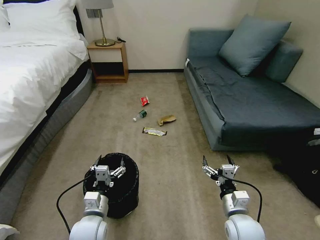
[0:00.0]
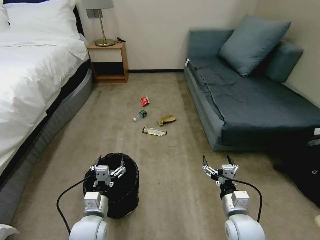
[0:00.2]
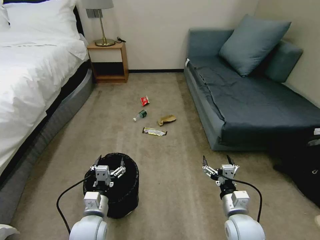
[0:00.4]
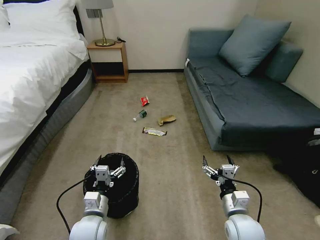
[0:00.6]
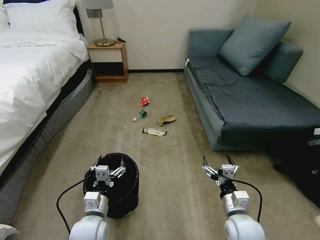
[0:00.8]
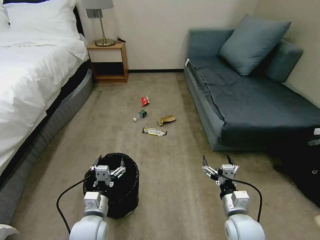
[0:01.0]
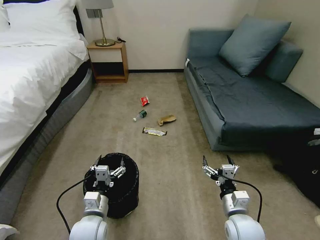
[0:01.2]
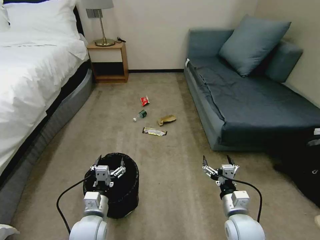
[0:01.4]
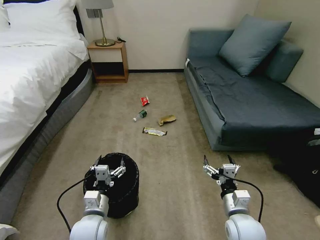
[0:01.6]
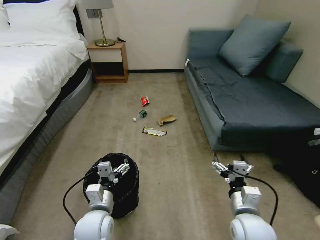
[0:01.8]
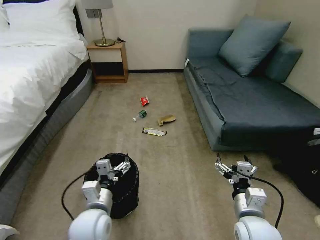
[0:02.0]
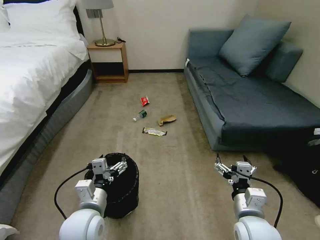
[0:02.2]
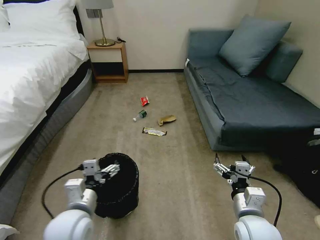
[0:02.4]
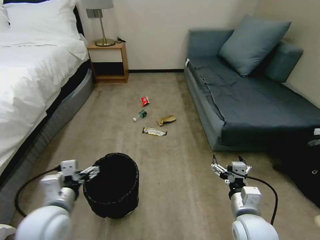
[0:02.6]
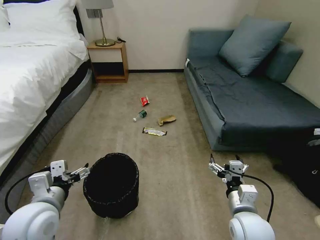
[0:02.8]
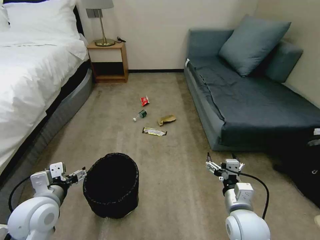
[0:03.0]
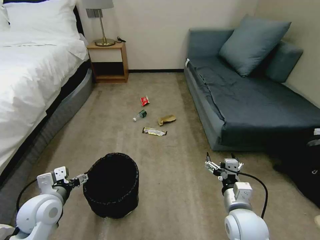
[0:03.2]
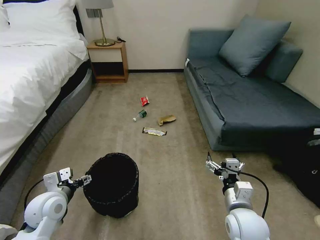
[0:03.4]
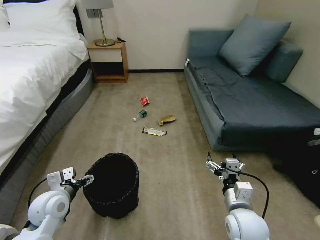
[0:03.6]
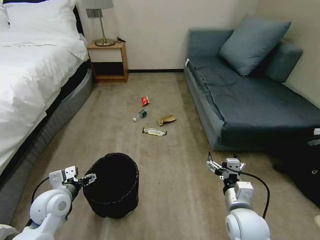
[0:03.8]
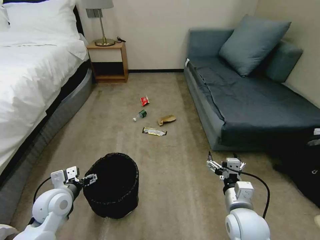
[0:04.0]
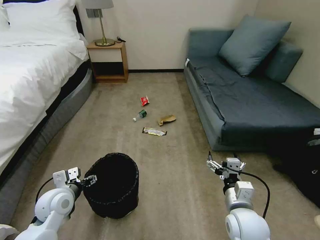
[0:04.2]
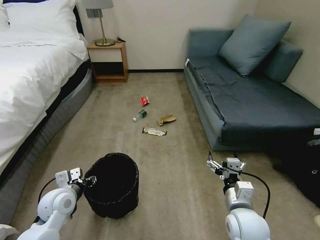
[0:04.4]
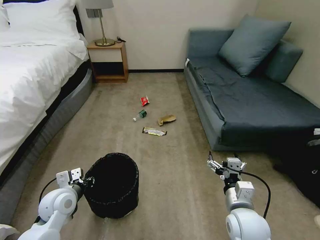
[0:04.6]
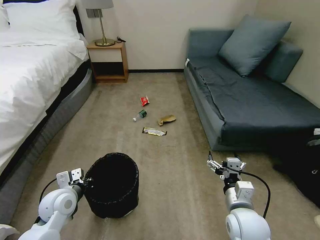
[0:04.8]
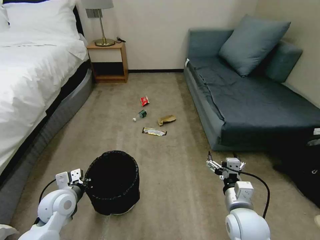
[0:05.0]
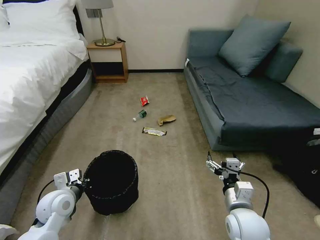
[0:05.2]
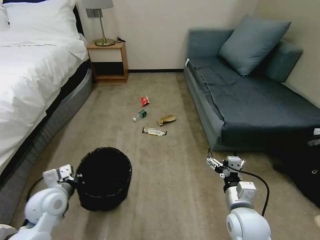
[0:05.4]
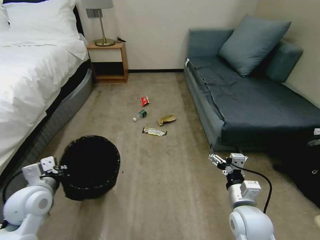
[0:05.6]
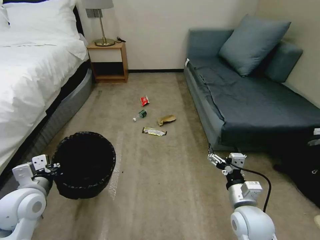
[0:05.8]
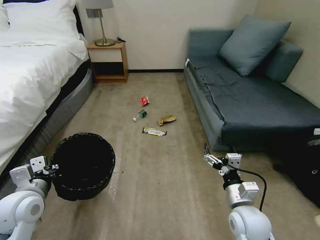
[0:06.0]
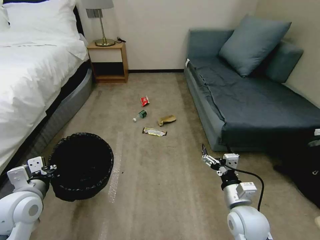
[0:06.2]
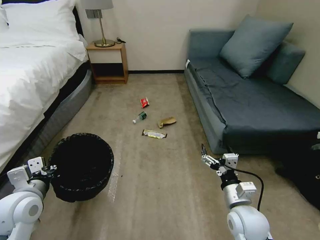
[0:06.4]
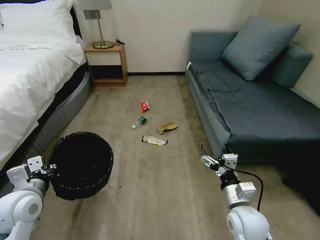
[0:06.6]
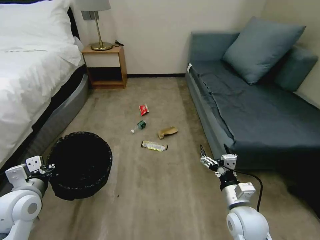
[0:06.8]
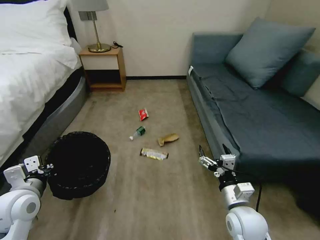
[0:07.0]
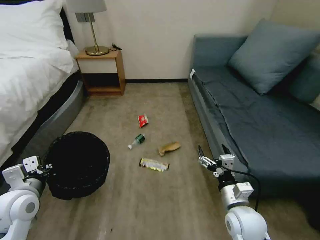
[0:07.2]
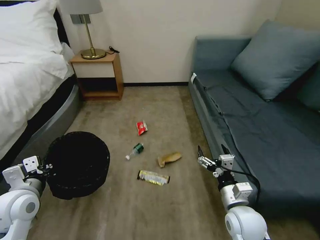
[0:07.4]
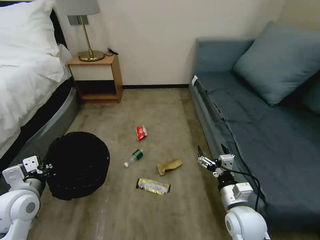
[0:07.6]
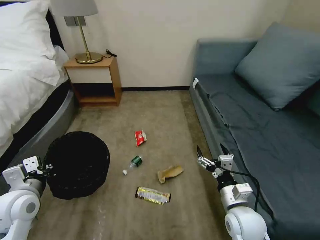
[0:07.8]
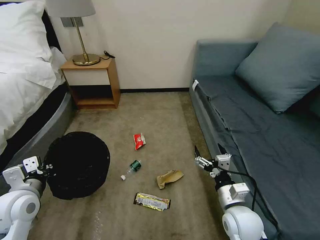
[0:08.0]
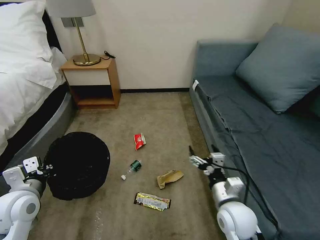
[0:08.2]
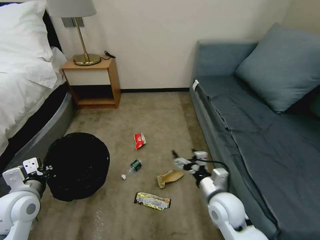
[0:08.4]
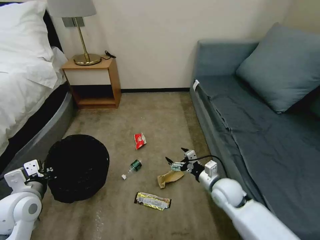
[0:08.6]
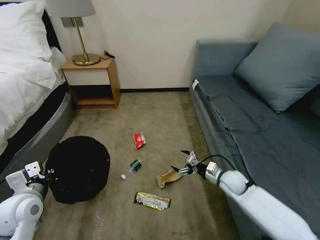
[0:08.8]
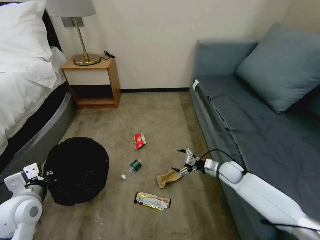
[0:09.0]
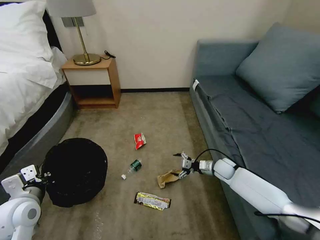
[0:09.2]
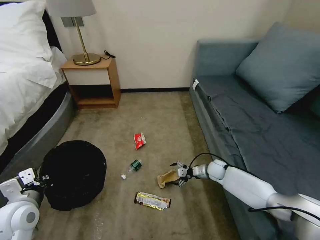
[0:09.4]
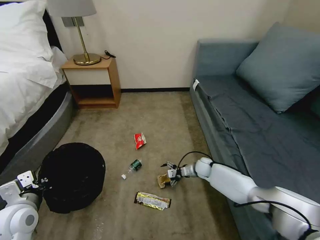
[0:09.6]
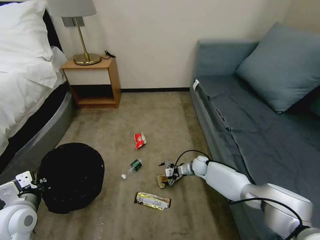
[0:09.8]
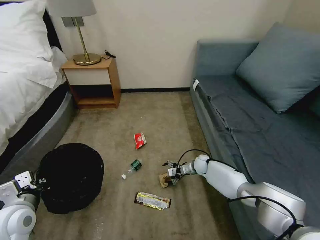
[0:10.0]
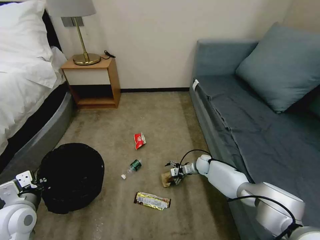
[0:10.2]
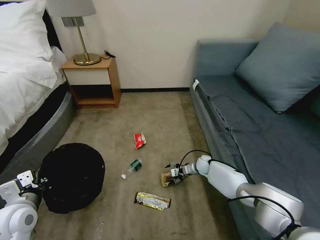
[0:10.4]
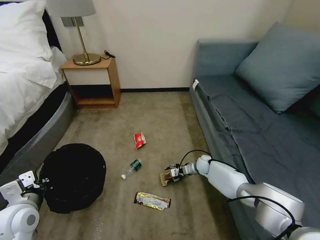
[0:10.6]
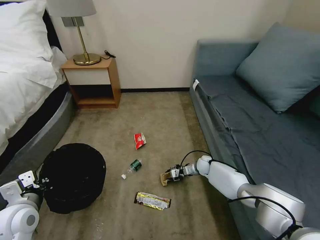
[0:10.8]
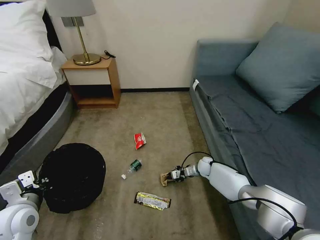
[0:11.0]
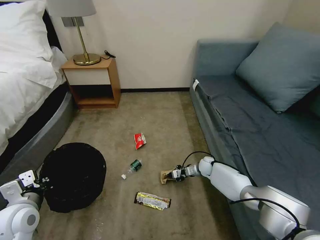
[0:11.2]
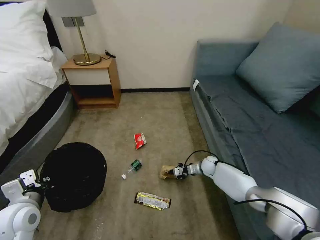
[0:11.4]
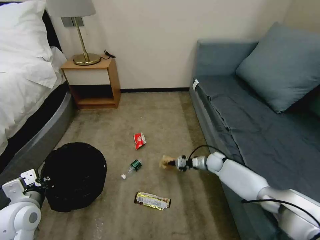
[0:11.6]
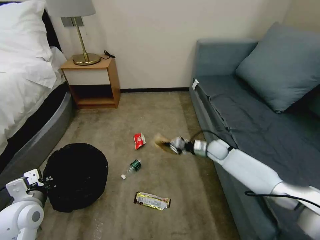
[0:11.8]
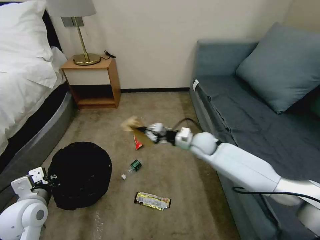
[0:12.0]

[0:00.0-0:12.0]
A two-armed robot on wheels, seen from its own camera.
Task of the whole recording: Pick up the trash bin, then pick up the garbage on the floor and place it into the trash bin.
0:01.6 to 0:03.0: The left gripper travels upward and to the left by some 15 cm.
0:03.0 to 0:04.4: The left gripper heads downward and forward, covering about 10 cm, and closes.
0:04.4 to 0:06.0: The left gripper shifts roughly 10 cm upward, and closes up.
0:07.6 to 0:09.0: The right gripper travels forward and downward by roughly 20 cm.
0:09.0 to 0:10.4: The right gripper heads forward, downward and to the left, covering some 15 cm.
0:10.4 to 0:12.0: The right gripper goes roughly 20 cm upward, and closes.

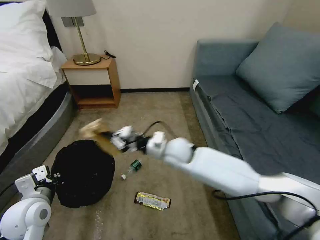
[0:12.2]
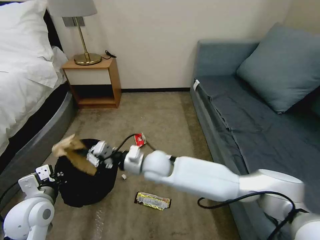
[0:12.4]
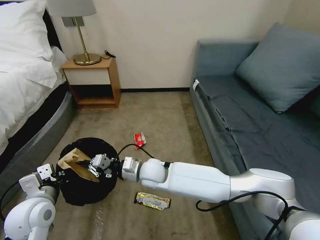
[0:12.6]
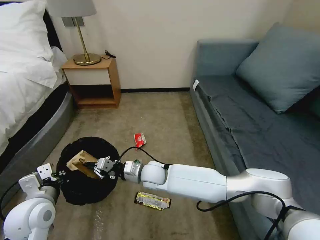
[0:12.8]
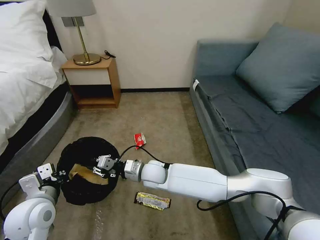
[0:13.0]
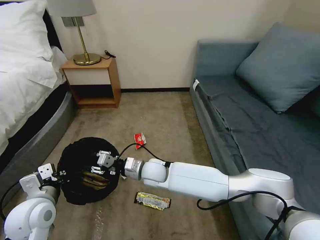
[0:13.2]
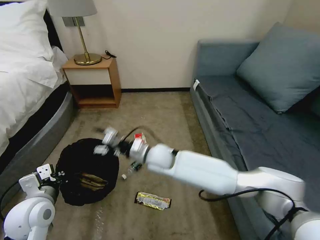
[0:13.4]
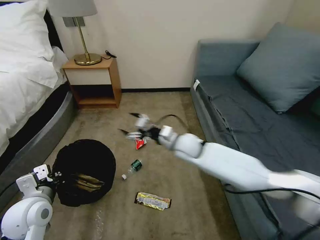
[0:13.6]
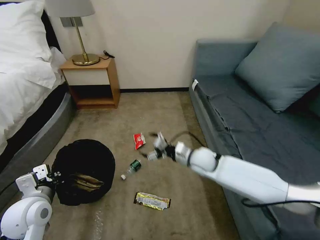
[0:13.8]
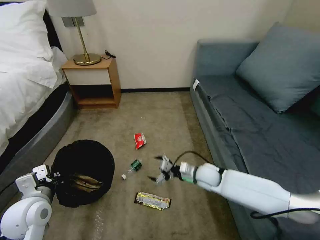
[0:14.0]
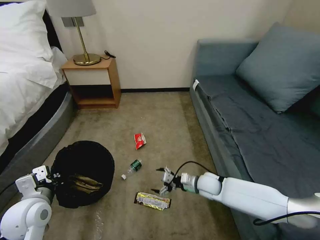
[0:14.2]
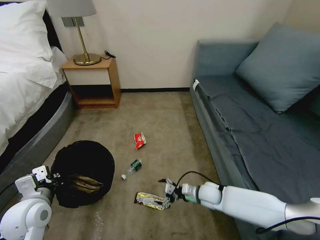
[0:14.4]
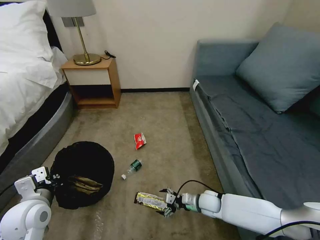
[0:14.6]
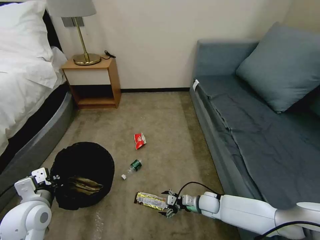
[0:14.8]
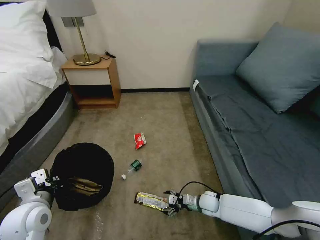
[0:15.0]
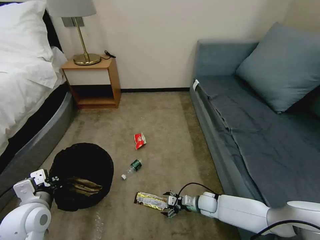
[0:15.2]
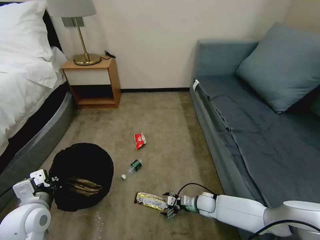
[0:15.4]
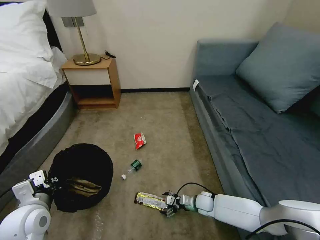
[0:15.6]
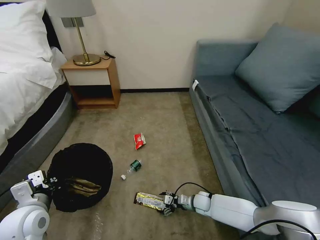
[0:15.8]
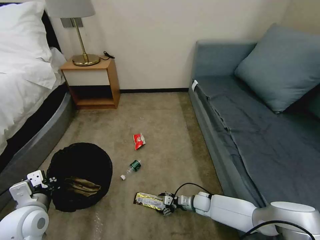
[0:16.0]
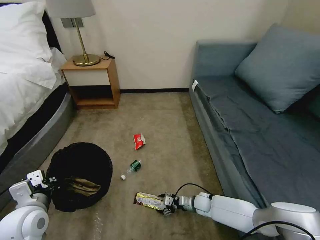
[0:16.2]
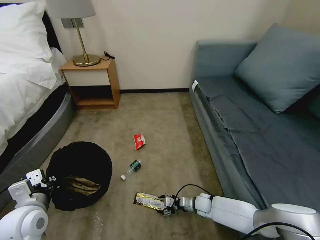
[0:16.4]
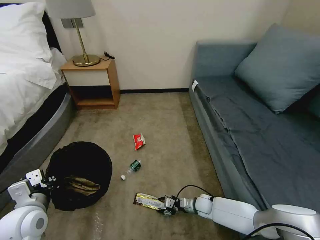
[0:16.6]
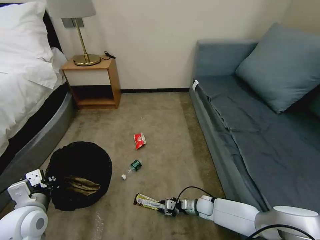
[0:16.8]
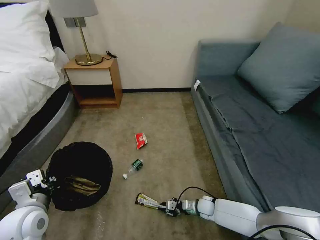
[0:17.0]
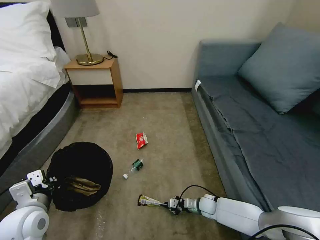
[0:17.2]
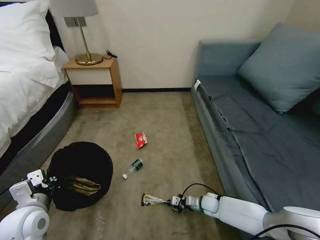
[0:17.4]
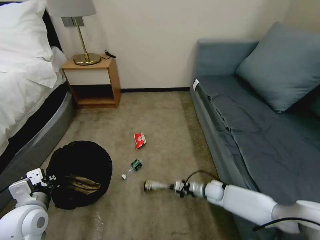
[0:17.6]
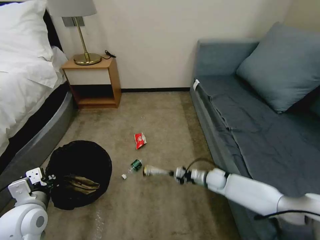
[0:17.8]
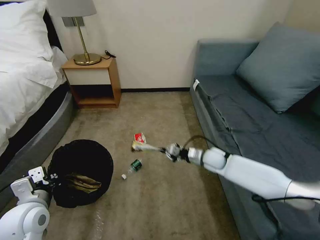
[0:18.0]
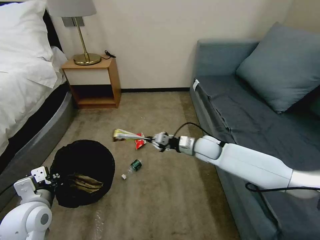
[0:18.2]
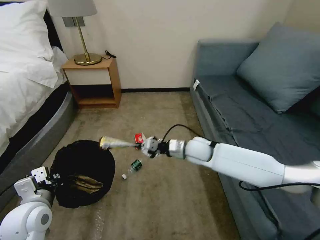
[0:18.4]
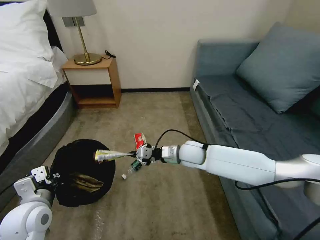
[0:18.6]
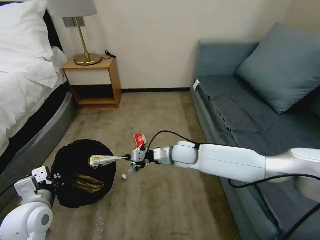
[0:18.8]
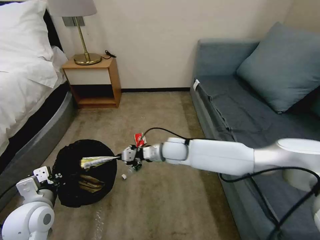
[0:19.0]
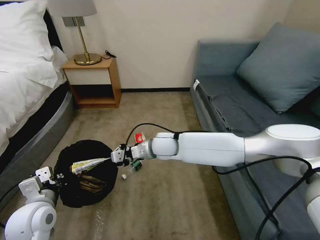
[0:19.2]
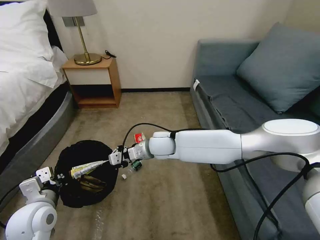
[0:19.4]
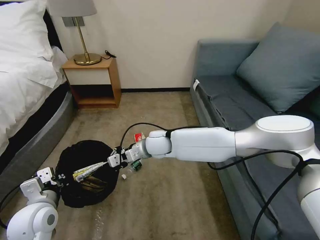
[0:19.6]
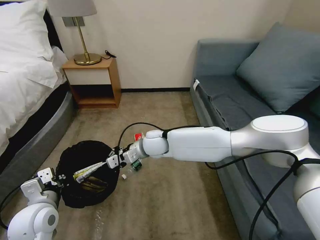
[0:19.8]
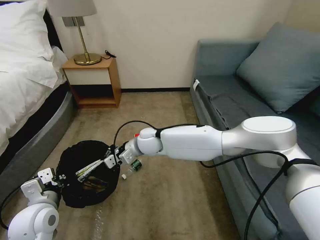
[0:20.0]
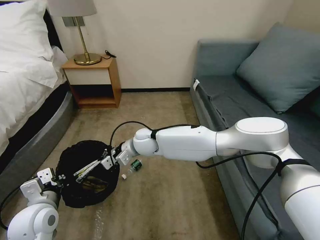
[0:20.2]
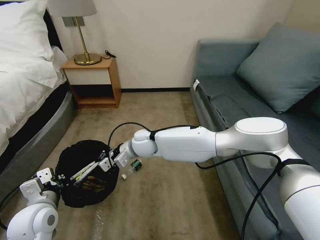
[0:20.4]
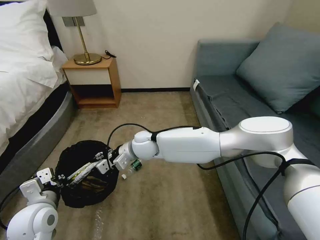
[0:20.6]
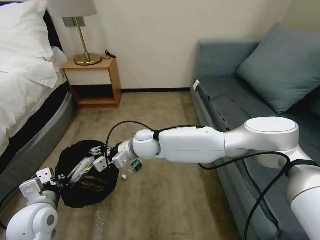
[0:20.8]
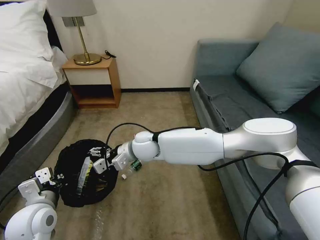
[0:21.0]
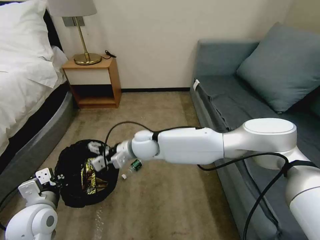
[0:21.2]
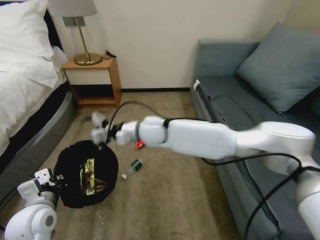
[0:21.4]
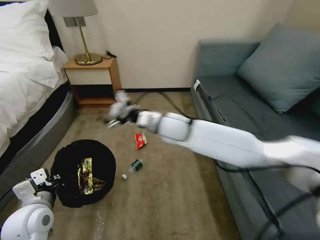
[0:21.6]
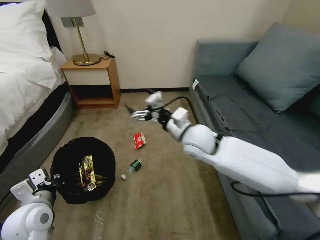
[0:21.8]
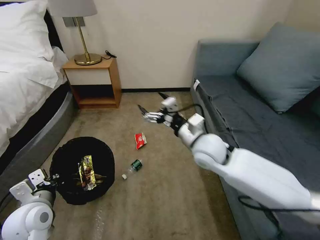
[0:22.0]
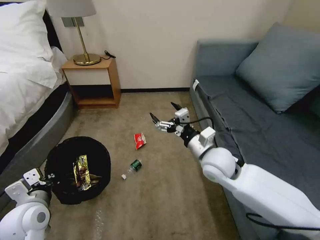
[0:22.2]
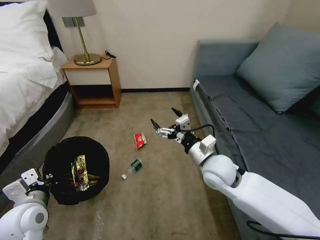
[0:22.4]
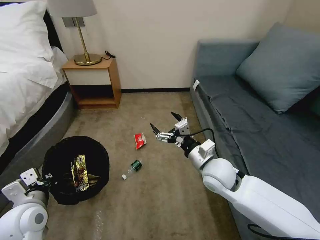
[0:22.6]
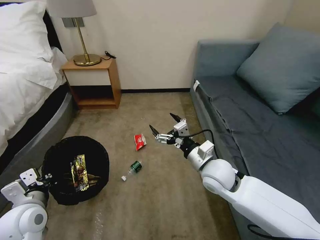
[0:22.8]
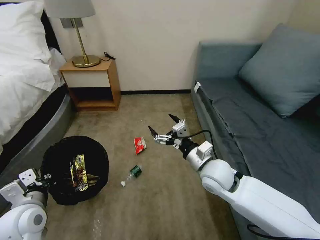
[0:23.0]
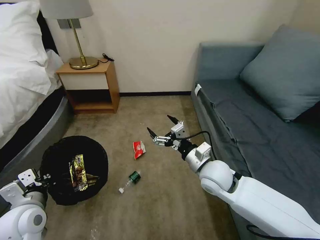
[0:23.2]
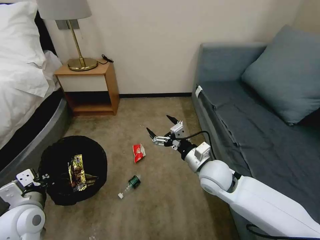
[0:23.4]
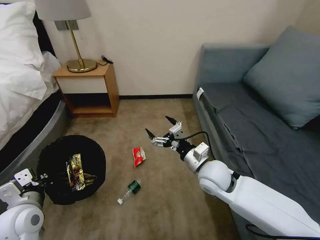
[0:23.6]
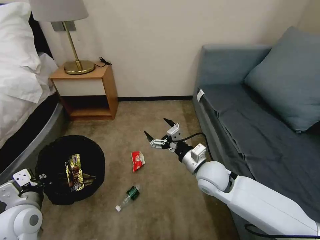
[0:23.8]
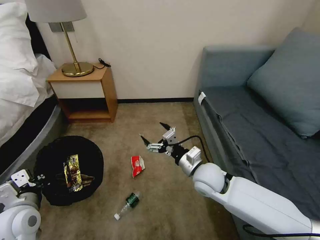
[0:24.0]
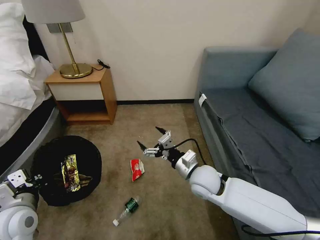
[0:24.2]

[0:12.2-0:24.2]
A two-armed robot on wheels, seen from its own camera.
Task of the whole recording: Pick up the trash bin, then pick up the garbage on the floor and place it into the trash bin.
0:12.2 to 0:13.8: The right gripper moves to the right and downward, about 10 cm, and opens.
0:13.8 to 0:15.2: The right gripper goes roughly 20 cm downward.
0:15.2 to 0:16.6: The right gripper closes.
0:16.6 to 0:18.2: The right gripper heads upward and forward, covering about 30 cm, and closes its fingers.
0:18.2 to 0:19.8: The right gripper goes some 20 cm to the left.
0:19.8 to 0:21.2: The right gripper opens.
0:21.2 to 0:22.6: The right gripper shifts roughly 25 cm to the right and backward.
0:22.6 to 0:24.2: The right gripper shifts by roughly 5 cm.
